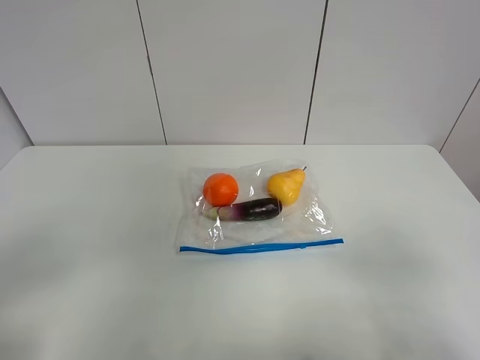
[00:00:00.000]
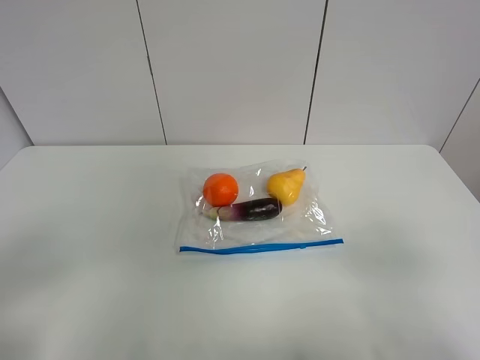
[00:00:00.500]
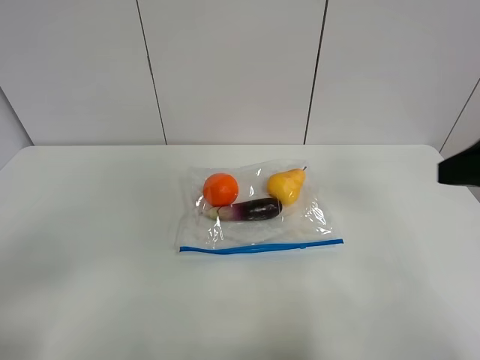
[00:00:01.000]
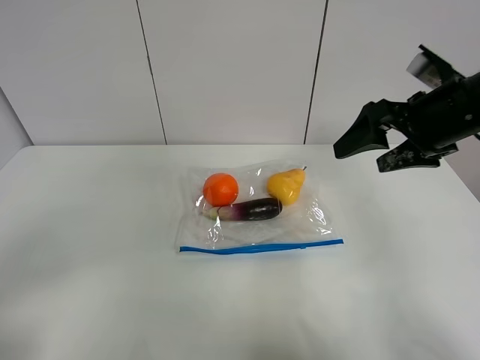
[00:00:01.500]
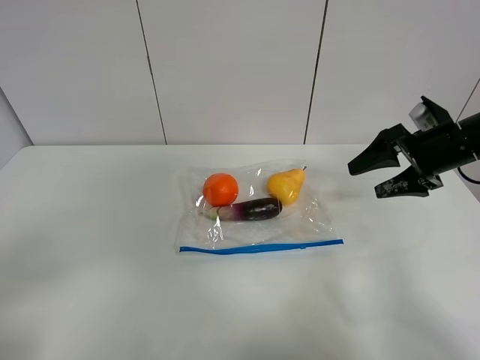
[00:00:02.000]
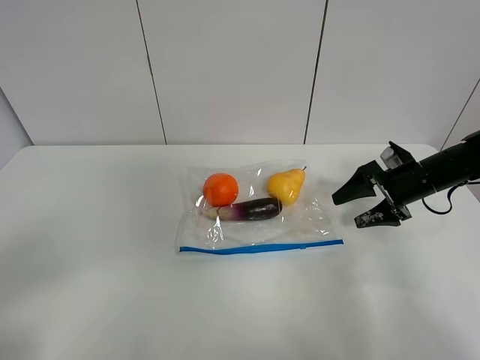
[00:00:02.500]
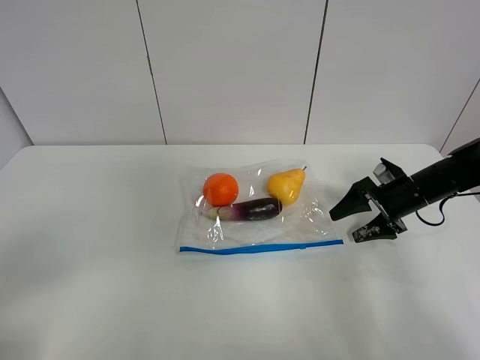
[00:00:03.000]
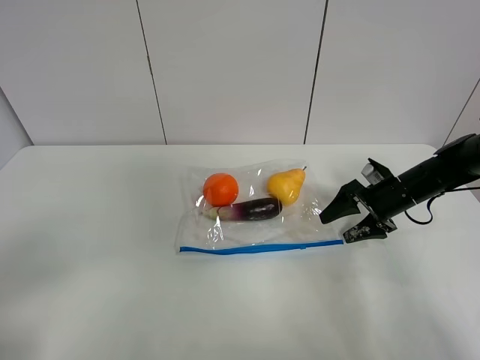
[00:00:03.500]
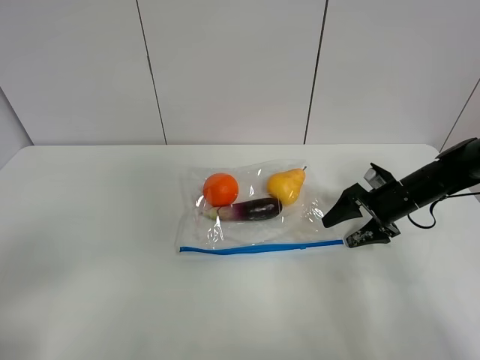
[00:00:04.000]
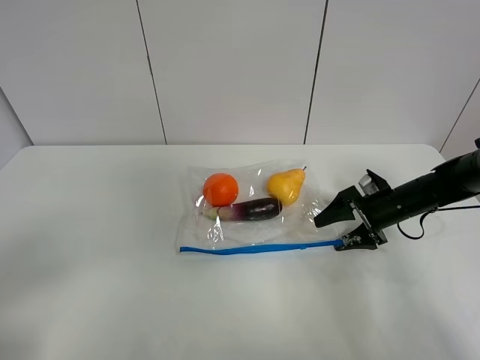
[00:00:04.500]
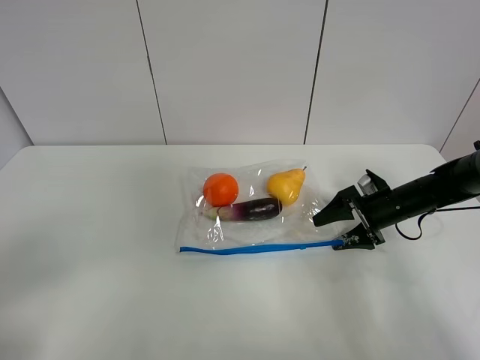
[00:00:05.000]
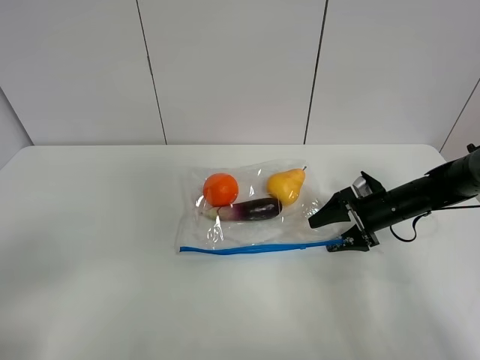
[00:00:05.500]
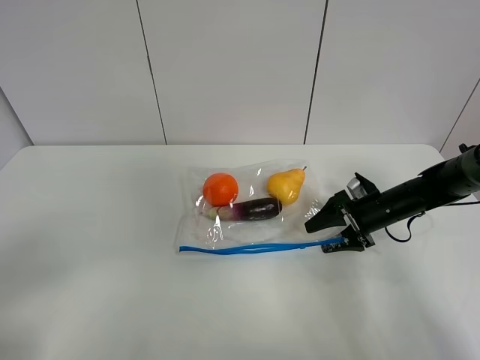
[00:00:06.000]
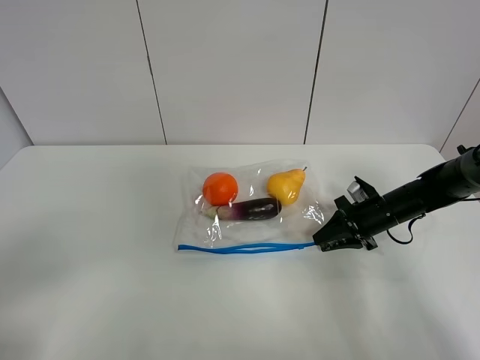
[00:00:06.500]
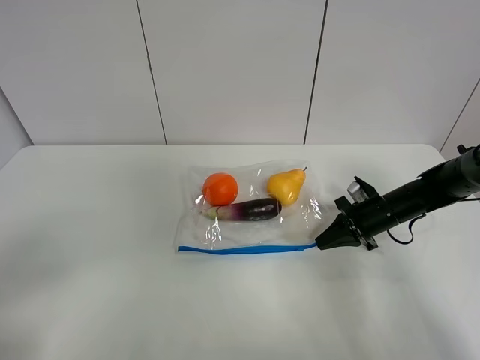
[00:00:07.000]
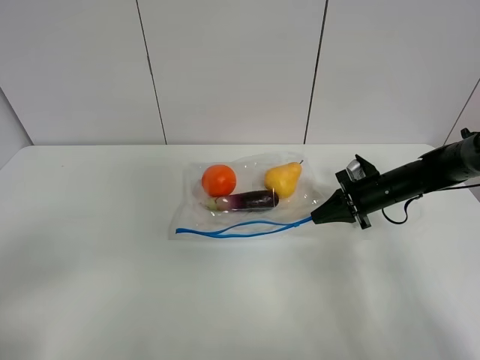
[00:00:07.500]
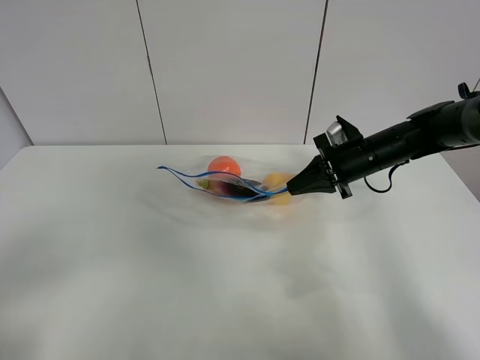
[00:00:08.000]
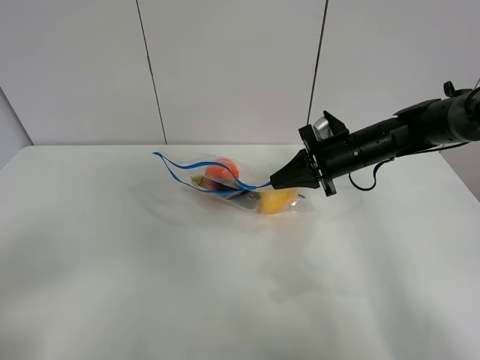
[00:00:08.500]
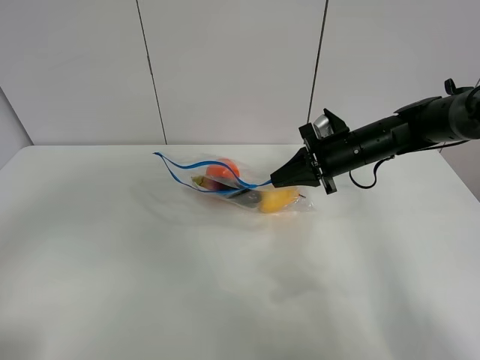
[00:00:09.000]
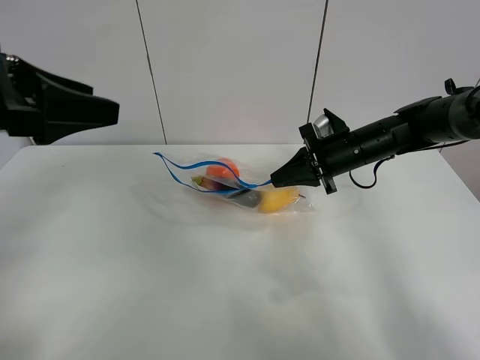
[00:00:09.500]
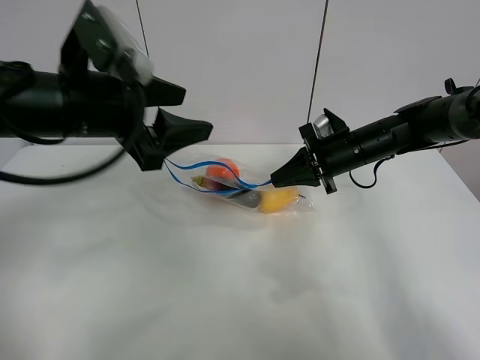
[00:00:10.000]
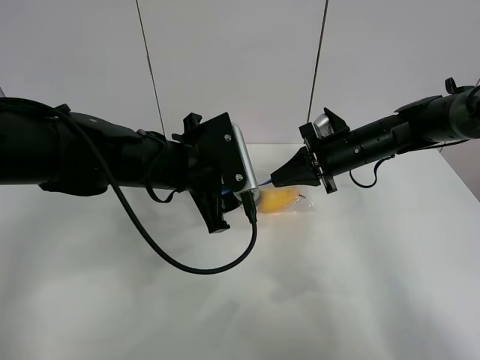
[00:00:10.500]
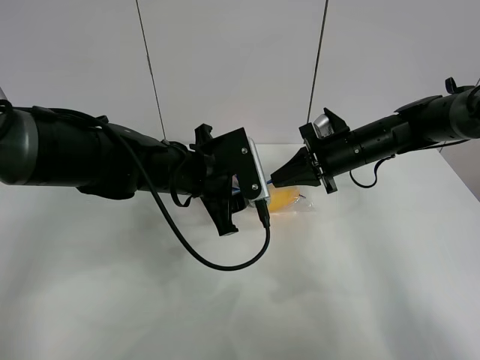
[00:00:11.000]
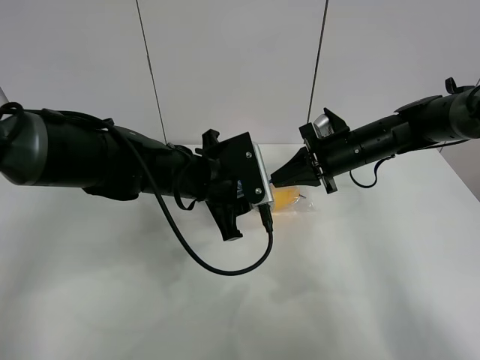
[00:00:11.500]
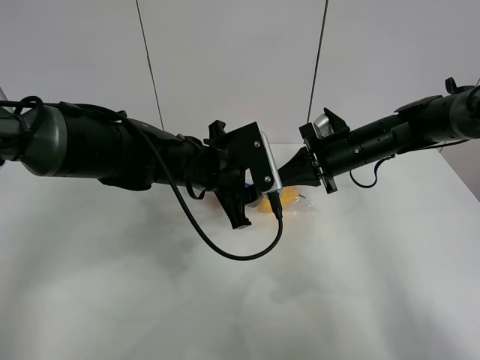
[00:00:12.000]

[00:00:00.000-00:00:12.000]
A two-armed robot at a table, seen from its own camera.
Step, 00:00:00.000 to 00:00:06.500: Grasp the fruit bag with right gripper.
Step, 00:00:07.000 to 00:00:09.000: Lift the fruit bag with your right gripper.
00:00:00.000 to 00:00:02.000: The right gripper is displaced forward by about 35 cm.
00:00:02.000 to 00:00:04.000: The right gripper shifts some 15 cm downward.
00:00:04.000 to 00:00:06.000: There are only small adjustments of the grippers.
00:00:06.000 to 00:00:08.000: The right gripper travels upward and to the left by roughly 10 cm, and closes.
00:00:08.000 to 00:00:10.000: The left gripper goes roughly 30 cm forward and to the right.
00:00:10.000 to 00:00:12.000: The left gripper moves downward, to the right and forward, some 15 cm.

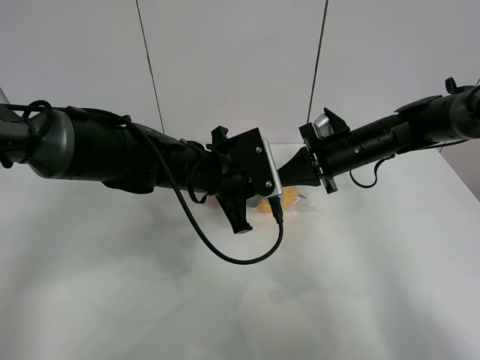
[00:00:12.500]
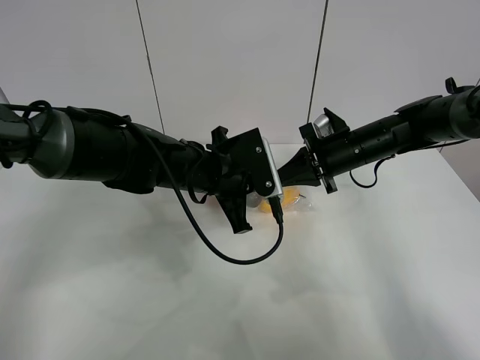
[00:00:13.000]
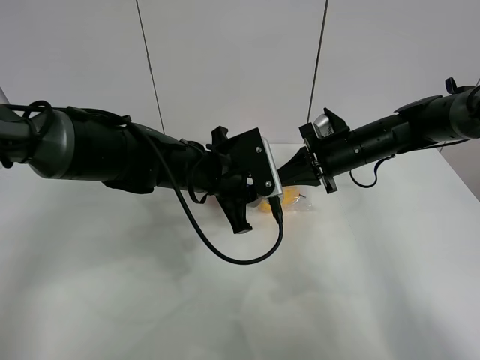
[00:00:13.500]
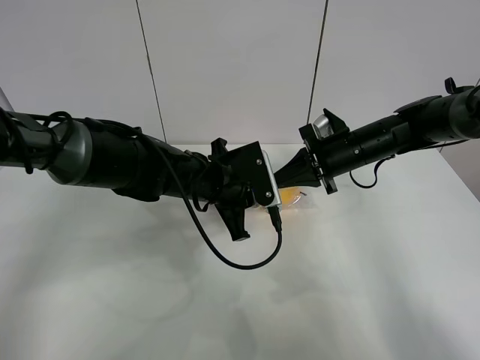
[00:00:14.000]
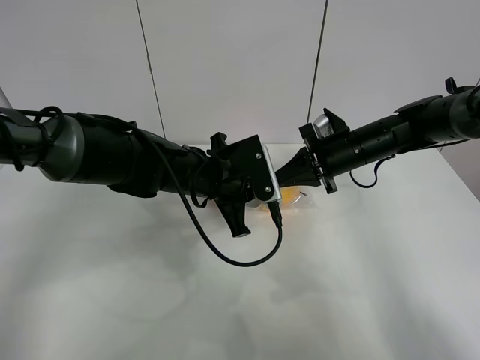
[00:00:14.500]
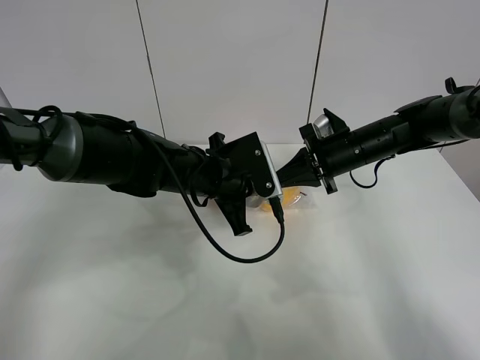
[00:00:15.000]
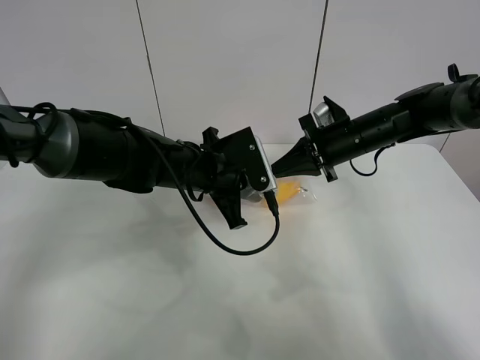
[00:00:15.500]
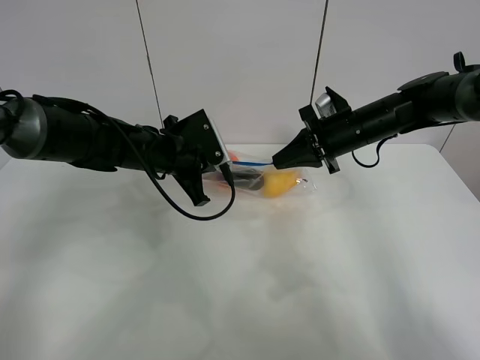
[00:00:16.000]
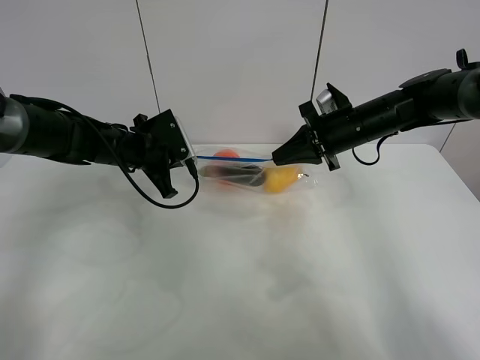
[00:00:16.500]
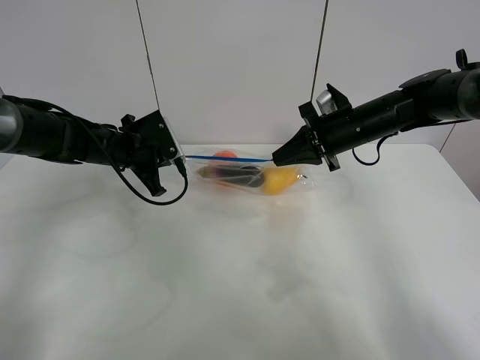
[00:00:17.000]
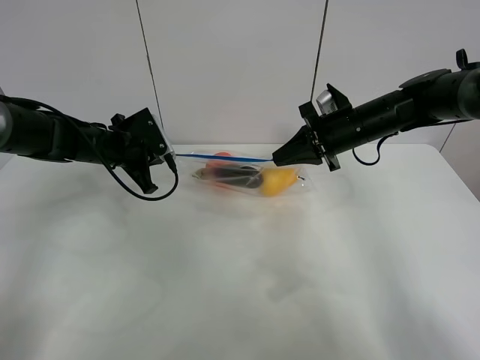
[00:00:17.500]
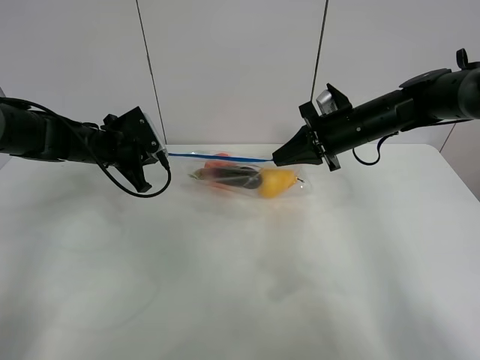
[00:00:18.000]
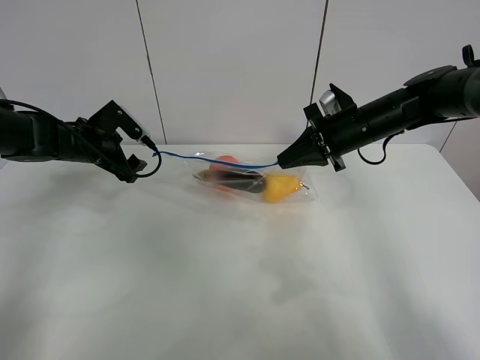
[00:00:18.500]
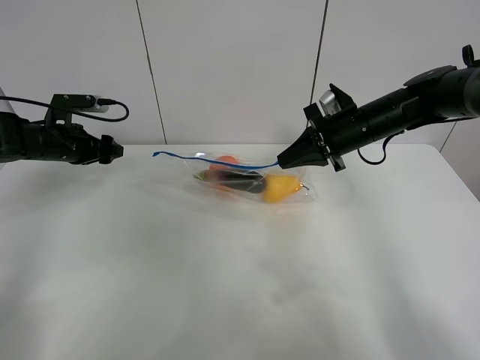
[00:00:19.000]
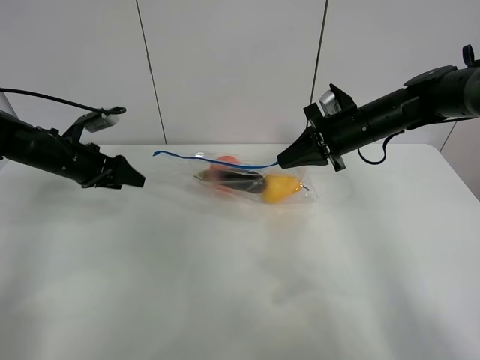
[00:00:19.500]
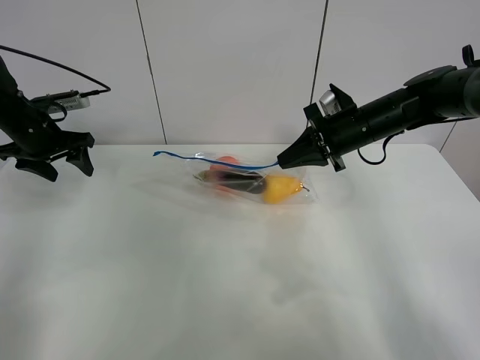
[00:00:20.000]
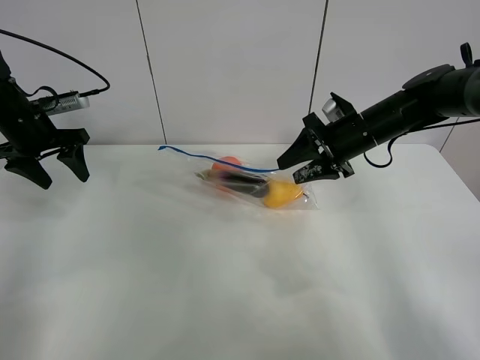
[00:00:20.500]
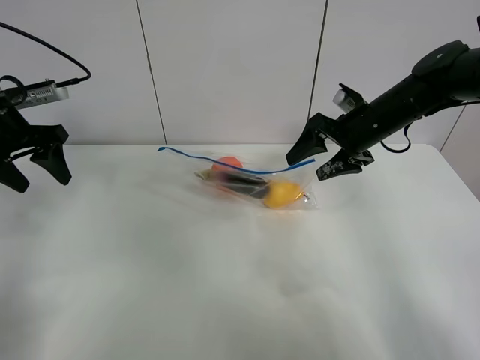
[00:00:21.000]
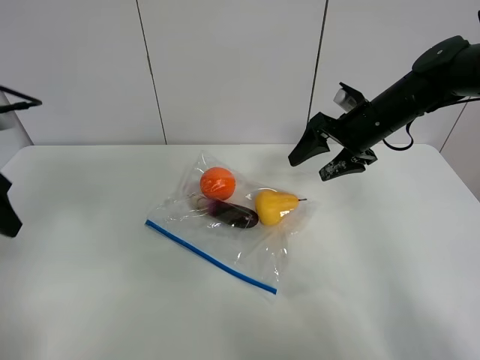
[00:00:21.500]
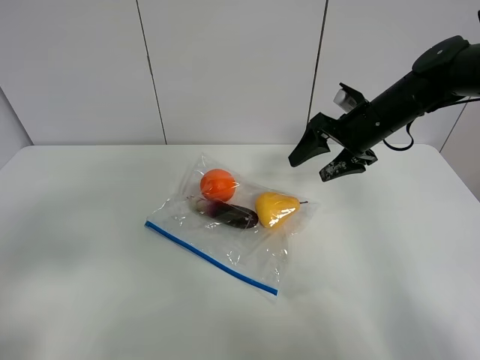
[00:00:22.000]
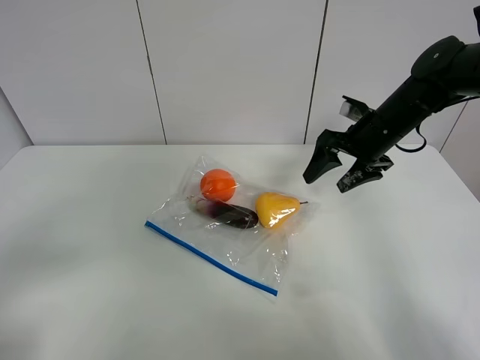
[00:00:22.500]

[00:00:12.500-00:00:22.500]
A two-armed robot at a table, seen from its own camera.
Step, 00:00:12.500 to 00:00:18.000: Pull the fruit bag with left gripper.
00:00:12.500 to 00:00:14.500: The grippers make only small movements.
00:00:14.500 to 00:00:16.500: The left gripper heads to the left and forward, covering about 15 cm.
00:00:16.500 to 00:00:18.500: The left gripper travels to the left by some 10 cm, and opens its fingers.
00:00:18.500 to 00:00:20.500: The right gripper opens. Meanwhile the left gripper shifts about 10 cm upward and to the left.
00:00:20.500 to 00:00:22.500: The left gripper travels backward by some 40 cm.

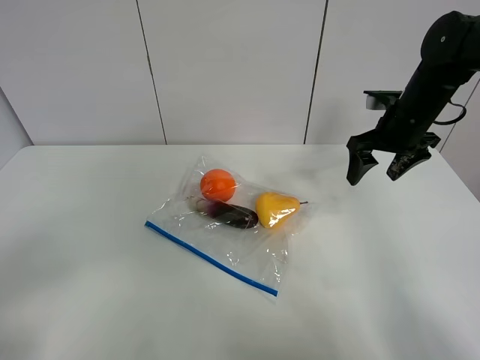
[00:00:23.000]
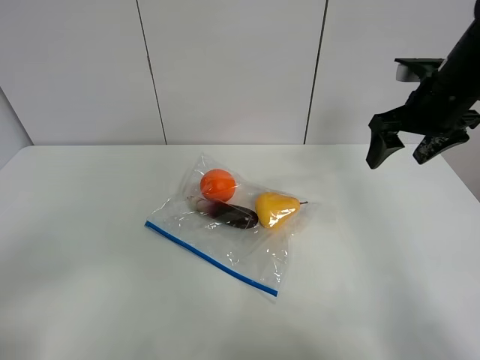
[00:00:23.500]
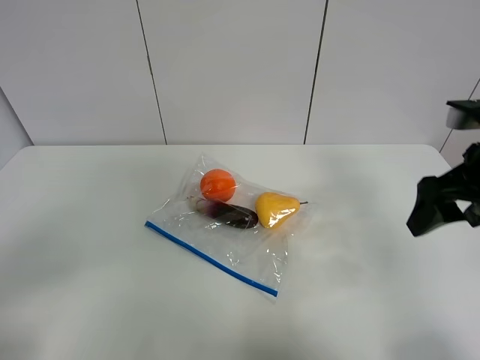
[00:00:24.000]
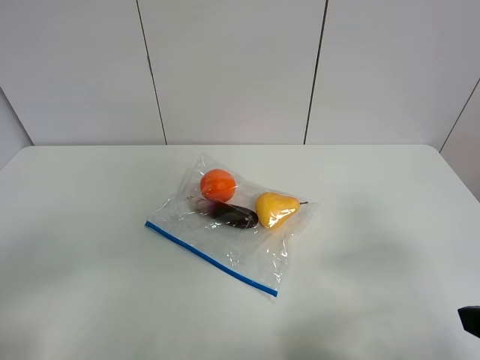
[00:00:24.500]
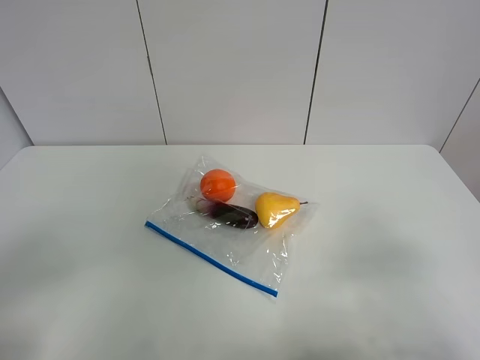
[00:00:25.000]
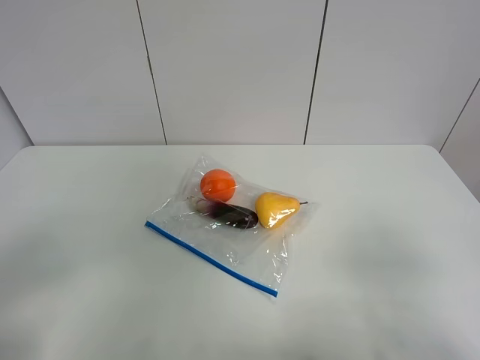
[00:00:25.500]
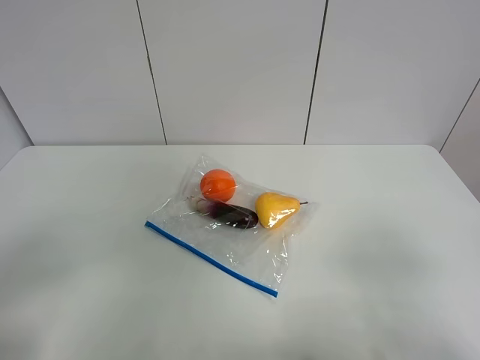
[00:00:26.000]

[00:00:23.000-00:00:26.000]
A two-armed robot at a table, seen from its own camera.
00:00:23.000 to 00:00:24.500: The right gripper moves backward, approximately 30 cm.
